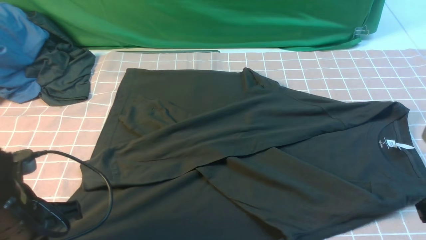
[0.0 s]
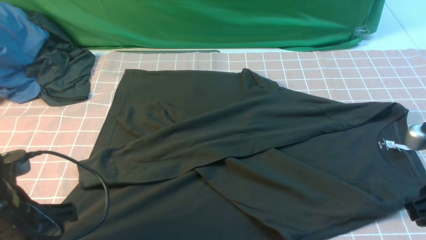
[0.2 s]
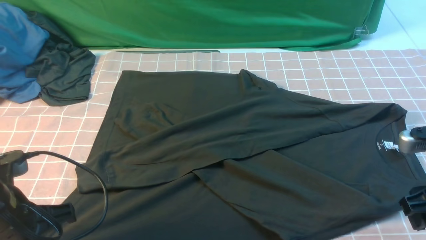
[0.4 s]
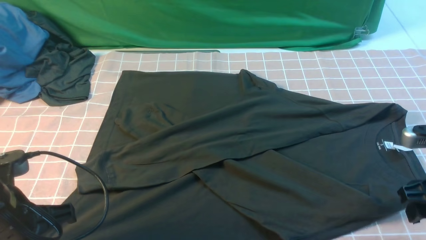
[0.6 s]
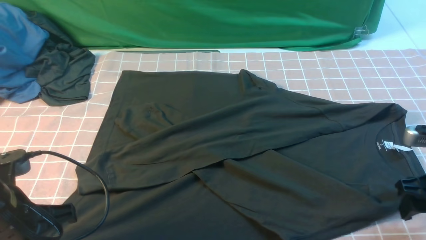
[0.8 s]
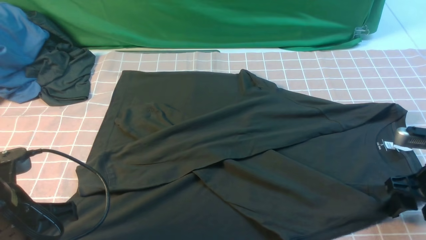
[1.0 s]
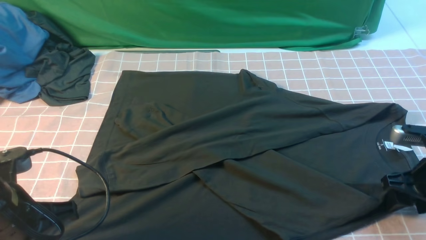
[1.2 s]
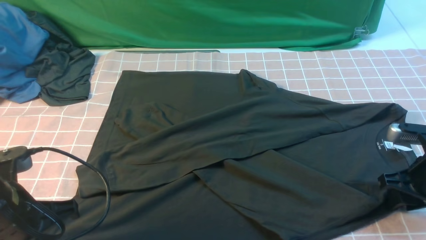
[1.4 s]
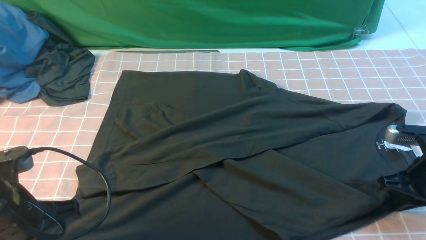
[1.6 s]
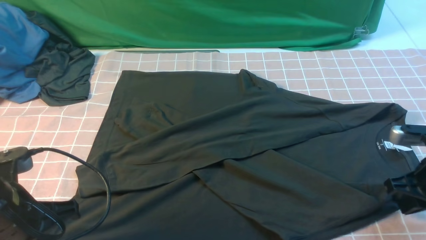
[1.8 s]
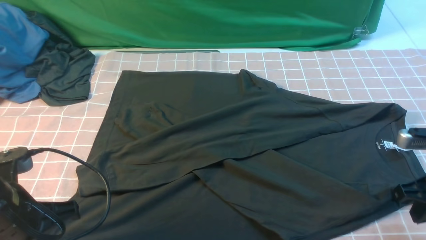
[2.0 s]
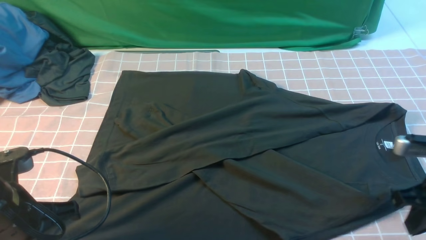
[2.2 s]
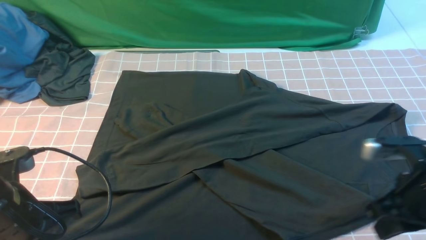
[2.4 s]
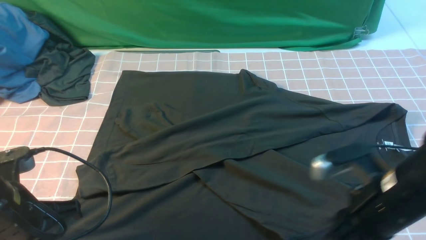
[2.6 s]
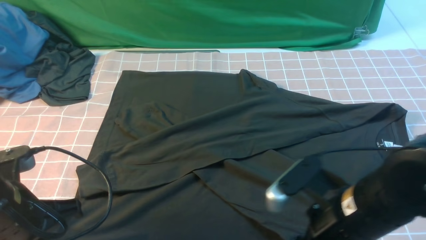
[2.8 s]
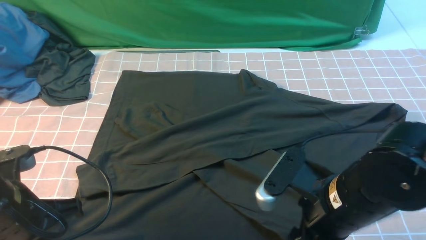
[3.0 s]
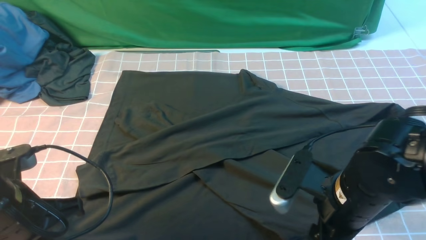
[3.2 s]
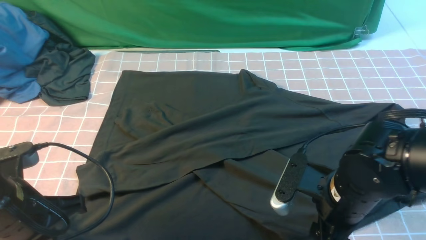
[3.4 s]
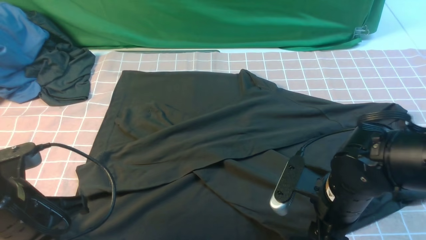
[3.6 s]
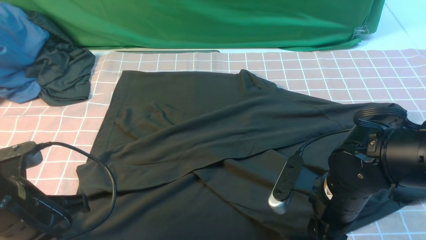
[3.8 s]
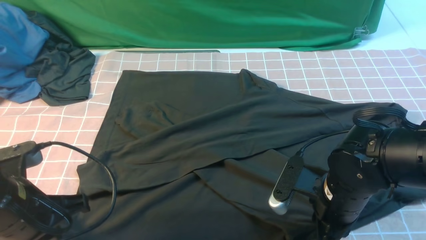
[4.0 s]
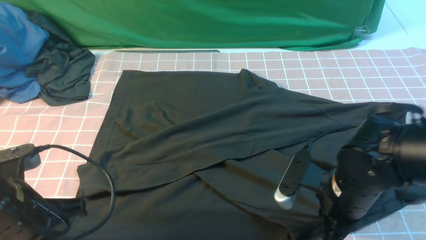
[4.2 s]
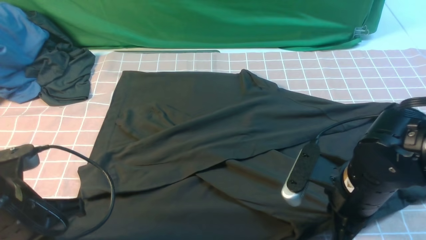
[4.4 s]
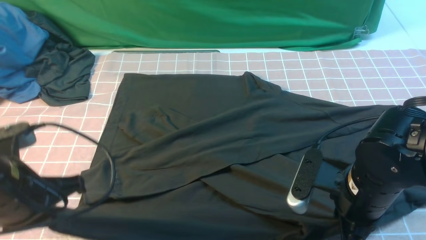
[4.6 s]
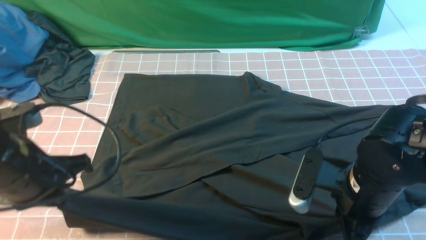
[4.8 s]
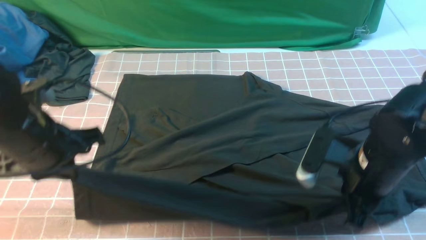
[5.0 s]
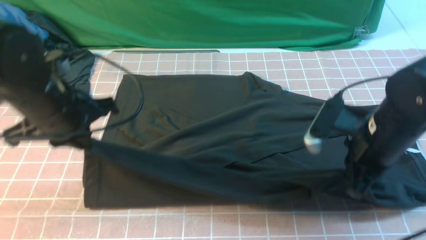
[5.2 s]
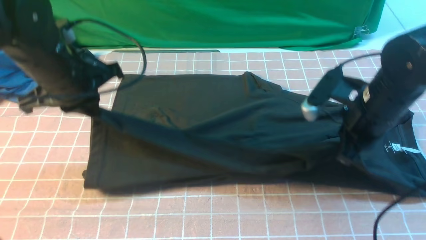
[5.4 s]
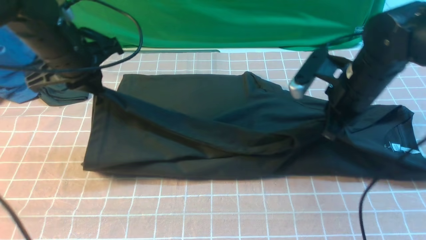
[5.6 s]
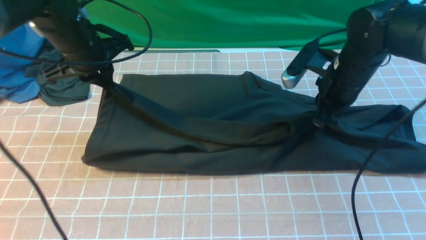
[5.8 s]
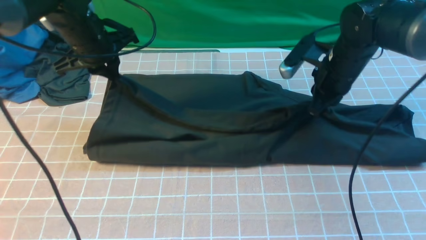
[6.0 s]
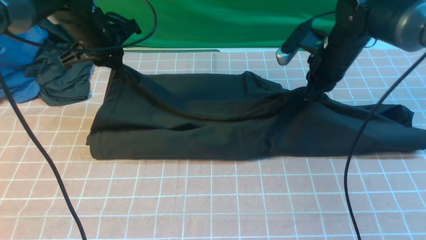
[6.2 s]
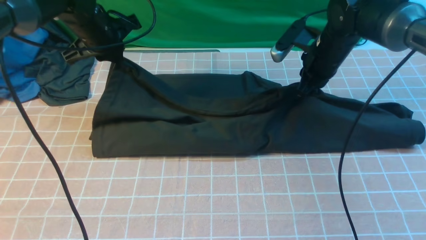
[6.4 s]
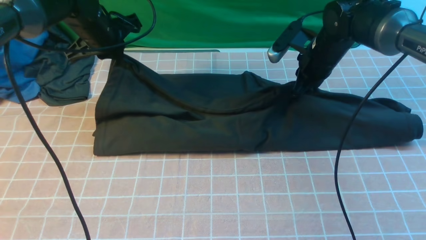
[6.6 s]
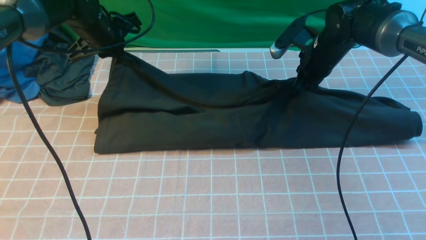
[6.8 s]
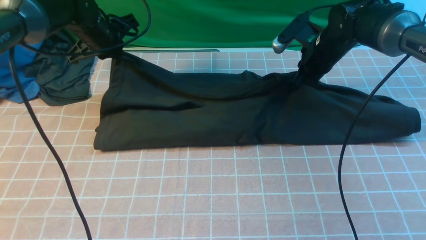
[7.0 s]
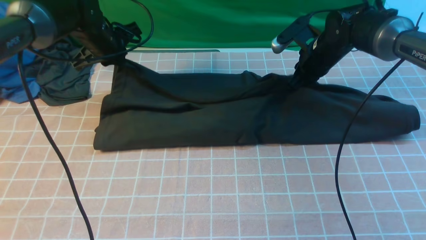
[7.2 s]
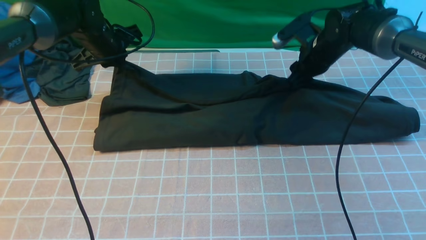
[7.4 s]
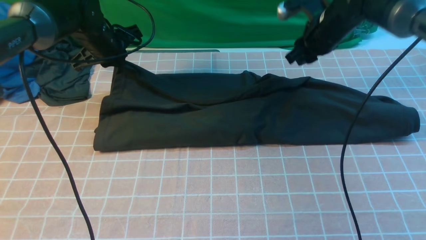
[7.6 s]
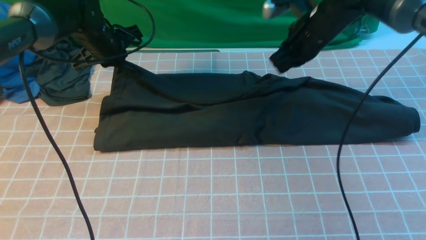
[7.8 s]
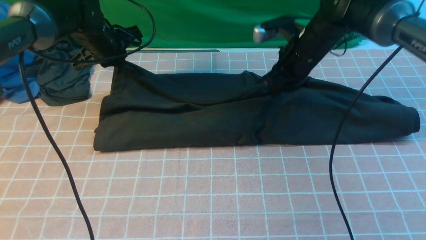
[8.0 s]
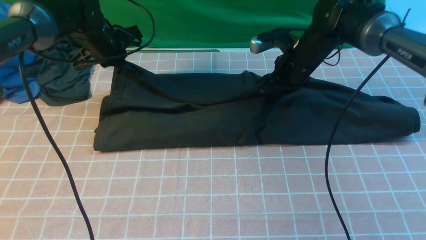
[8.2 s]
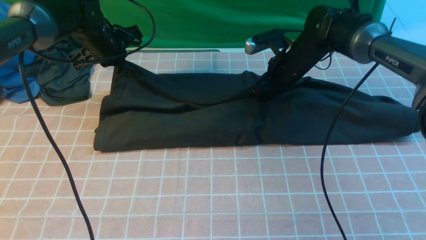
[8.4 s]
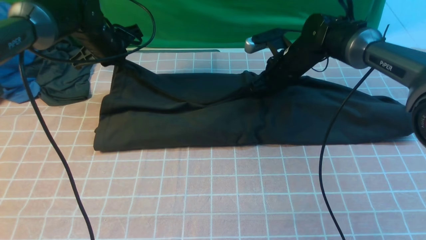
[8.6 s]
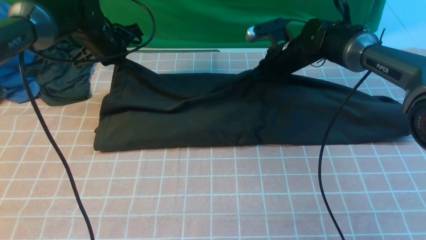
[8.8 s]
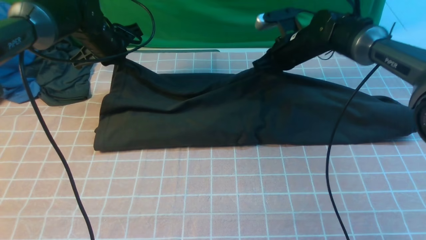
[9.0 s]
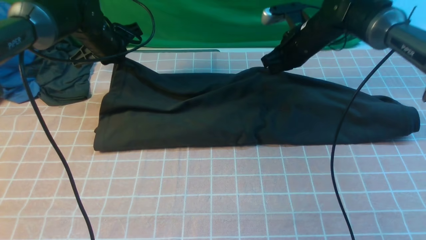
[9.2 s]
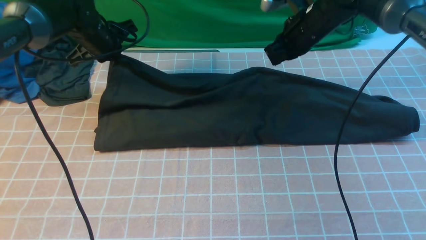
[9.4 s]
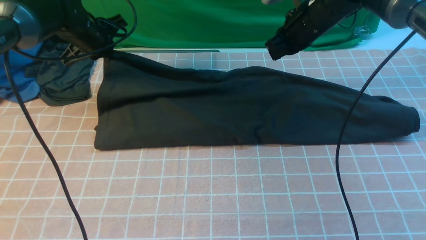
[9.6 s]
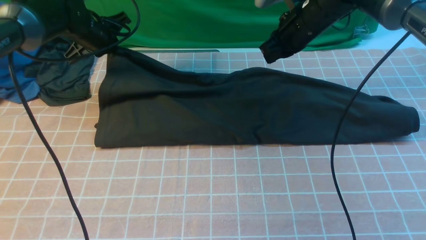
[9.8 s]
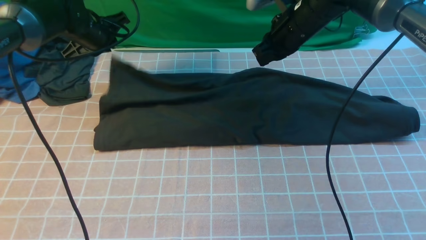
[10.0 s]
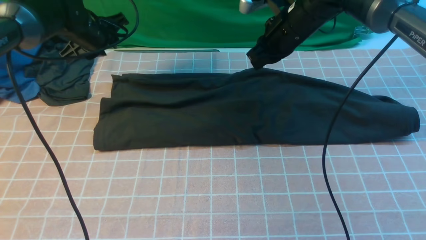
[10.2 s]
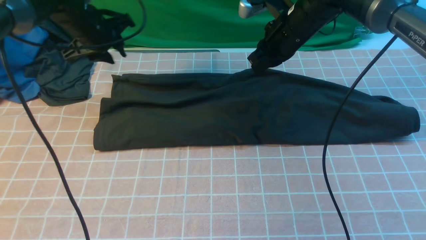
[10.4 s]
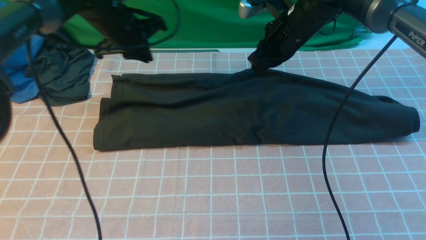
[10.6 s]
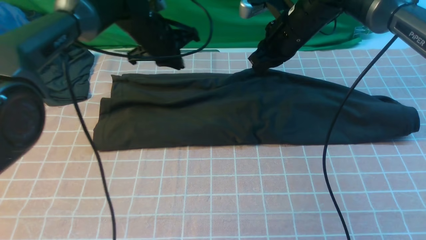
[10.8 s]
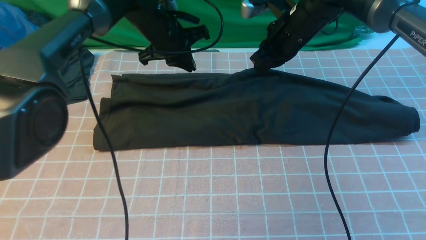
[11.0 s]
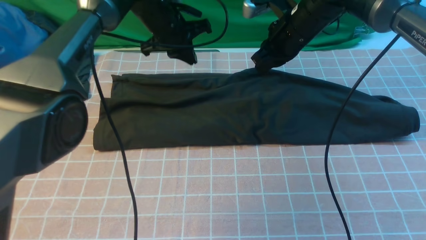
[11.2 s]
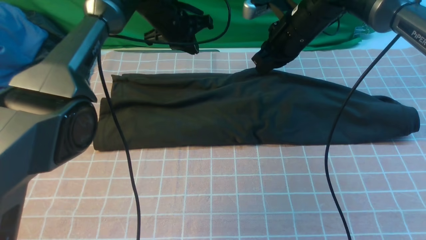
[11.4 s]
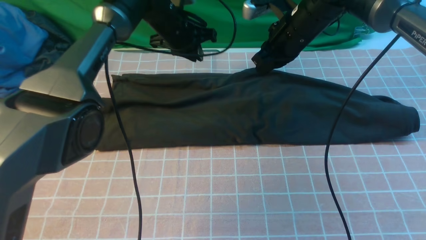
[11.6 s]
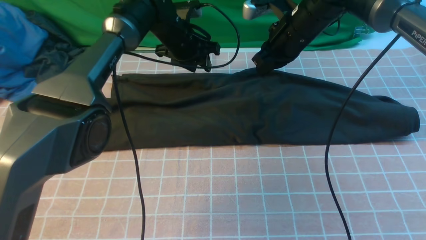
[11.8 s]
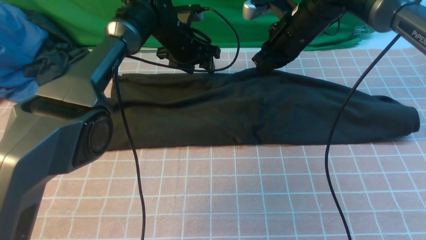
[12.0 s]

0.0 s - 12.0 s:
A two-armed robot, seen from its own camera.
Step, 0.0 s - 4.8 s: use both arms simultaneously to clamp the lower edge of the clothing fabric.
0.0 s - 1.6 s: The right gripper heads downward and forward, covering roughly 15 cm, and opens, then closes once more.
1.6 s - 3.0 s: The right gripper is displaced to the left and backward by about 20 cm, and opens up.
3.0 s - 4.4 s: The right gripper moves approximately 5 cm, and closes its fingers.
4.4 s - 6.0 s: Both grippers move forward, about 20 cm.
6.0 s - 7.6 s: Both grippers move forward, roughly 5 cm. The right gripper opens its fingers.
7.6 s - 9.0 s: The right gripper moves approximately 5 cm, and closes up.
9.0 s - 10.4 s: The left gripper opens its fingers, while the right gripper moves upward, about 10 cm.
10.4 s - 12.0 s: The left gripper is displaced to the right by about 15 cm, and opens.

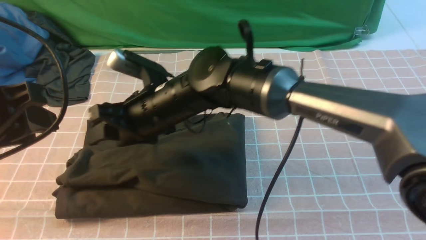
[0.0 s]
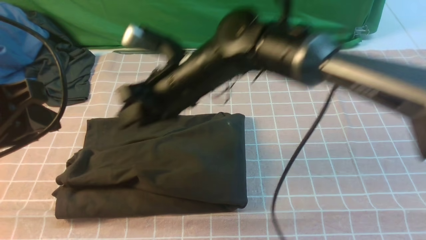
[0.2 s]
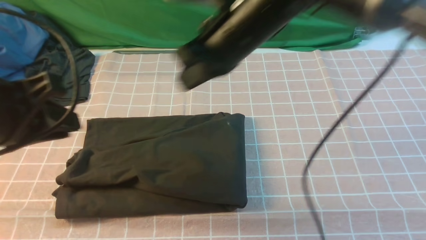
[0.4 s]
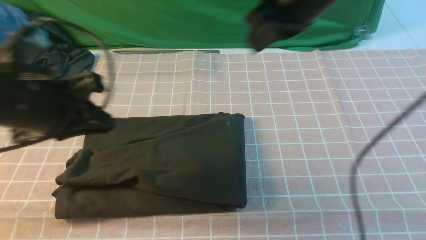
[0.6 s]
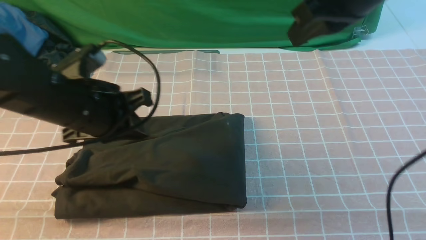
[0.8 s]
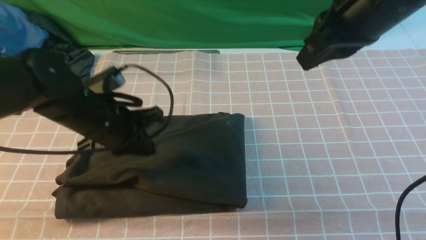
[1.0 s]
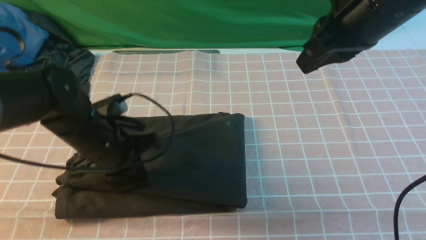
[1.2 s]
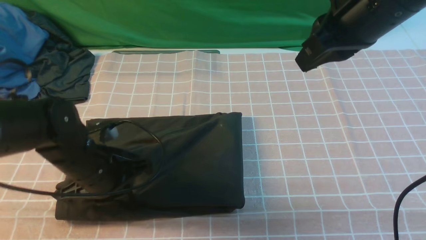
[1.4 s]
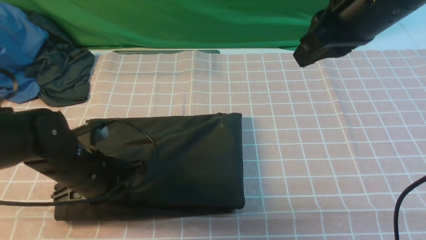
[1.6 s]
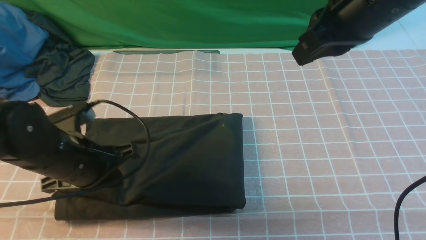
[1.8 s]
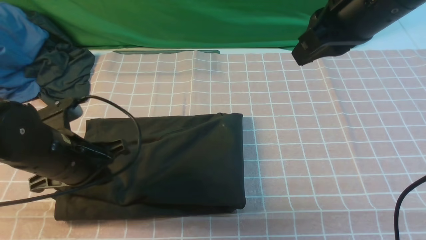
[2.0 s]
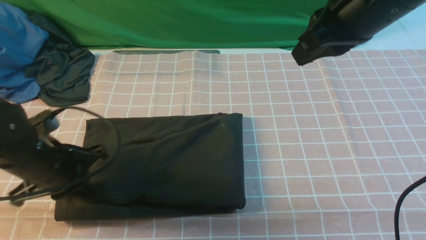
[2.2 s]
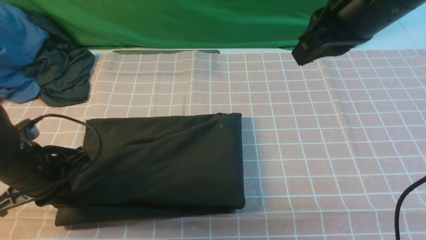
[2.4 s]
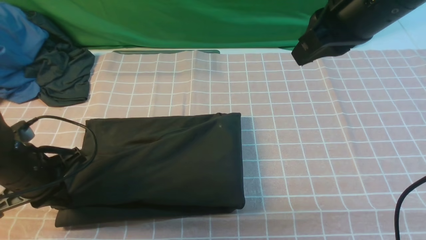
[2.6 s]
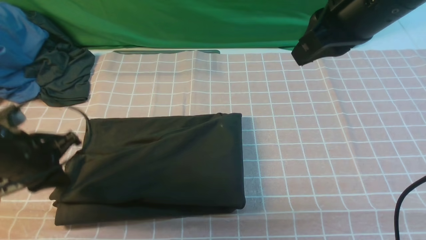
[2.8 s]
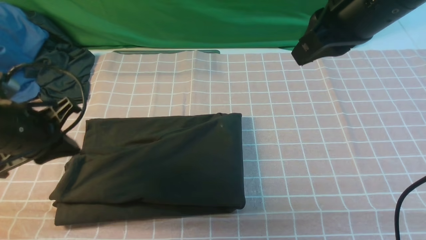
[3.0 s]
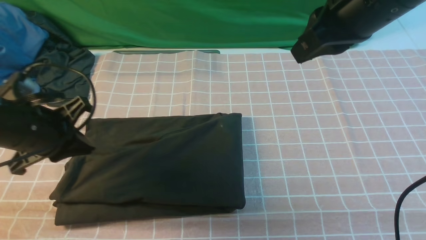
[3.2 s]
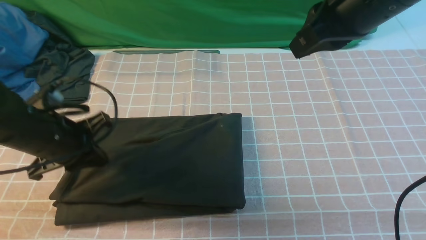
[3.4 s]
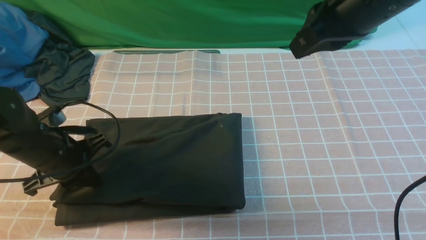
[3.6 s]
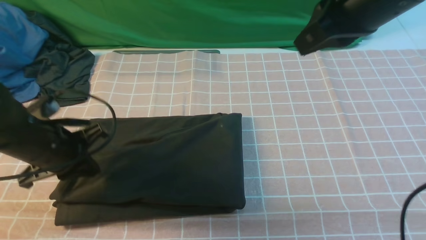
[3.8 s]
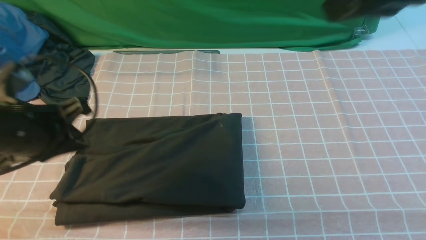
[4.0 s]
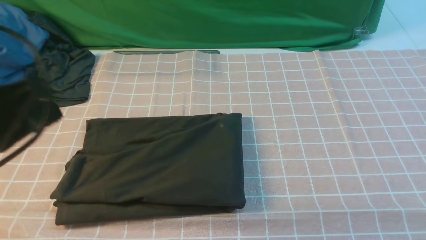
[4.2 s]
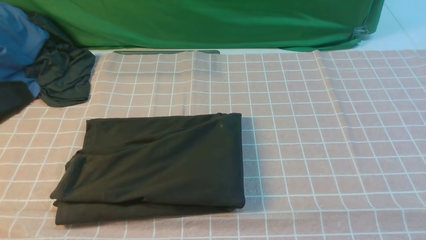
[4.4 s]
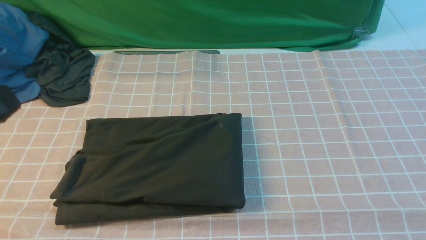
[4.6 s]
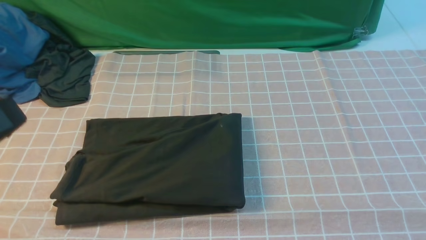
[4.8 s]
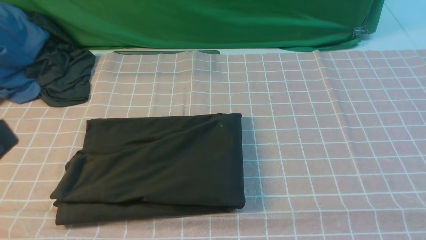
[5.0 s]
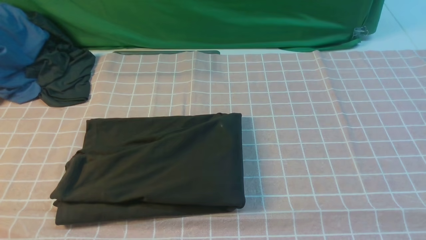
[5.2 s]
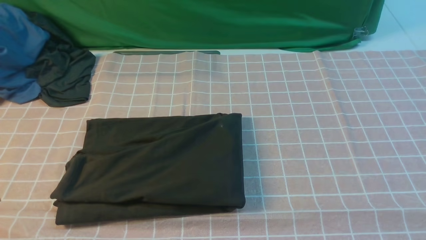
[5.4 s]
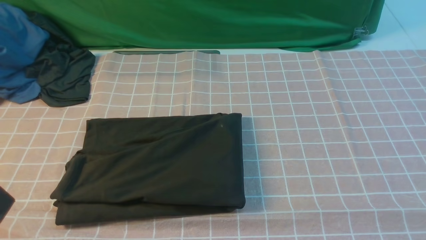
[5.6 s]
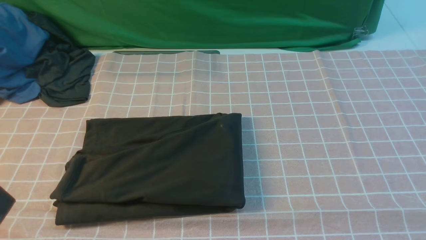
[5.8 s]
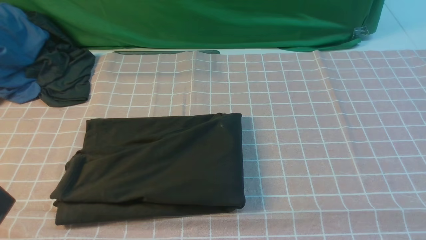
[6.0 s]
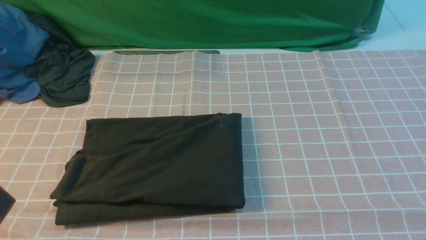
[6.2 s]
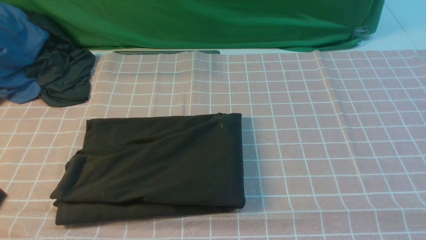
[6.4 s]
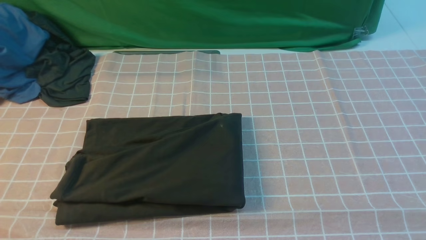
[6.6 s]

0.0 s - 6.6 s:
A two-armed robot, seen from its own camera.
0.0 s - 1.6 s: The left gripper moves downward and forward, about 20 cm, and closes its fingers. The right gripper shifts about 30 cm to the right and upward, and closes.
1.6 s - 3.2 s: The left gripper goes some 10 cm upward and to the left.
3.2 s - 5.0 s: The right gripper goes approximately 40 cm backward and to the right; the left gripper moves backward and upward, about 25 cm.
